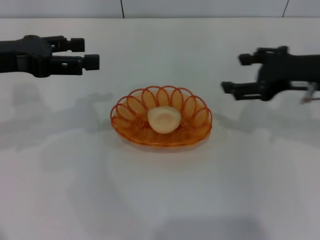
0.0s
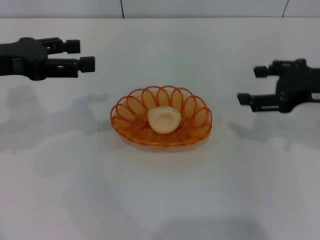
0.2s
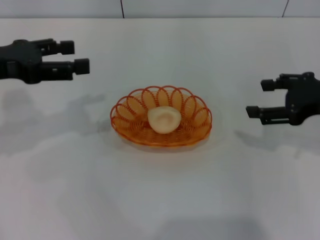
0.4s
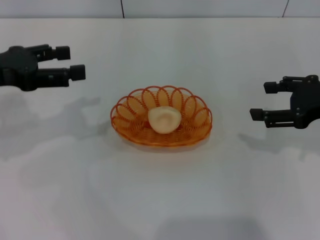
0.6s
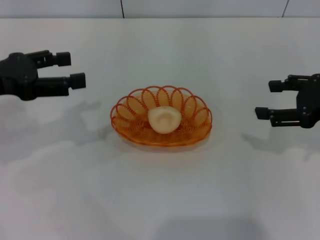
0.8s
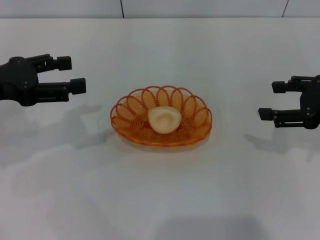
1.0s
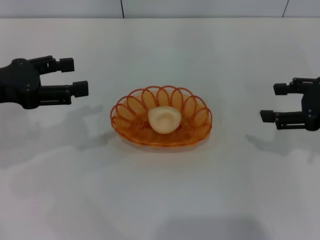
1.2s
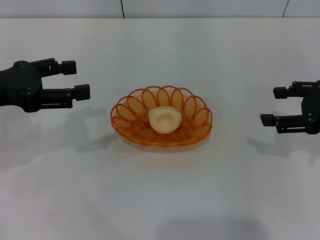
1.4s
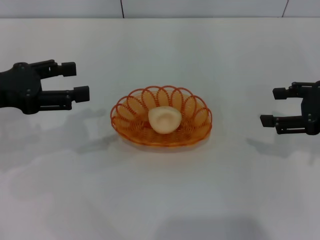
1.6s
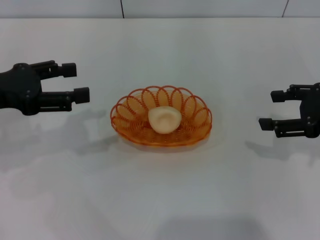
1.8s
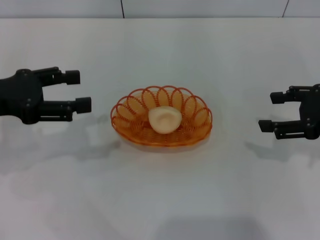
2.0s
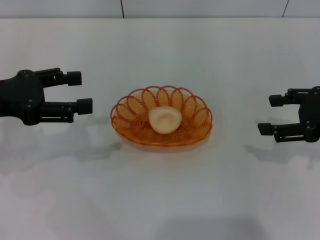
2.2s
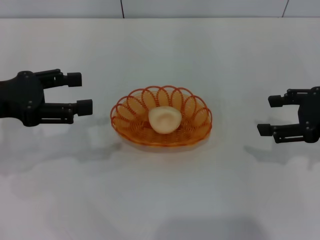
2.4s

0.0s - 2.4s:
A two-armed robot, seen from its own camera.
0.0s - 1.2s: The right gripper heads to the right, covering some 5 cm.
1.2s - 2.4s: The grippers make only small movements.
